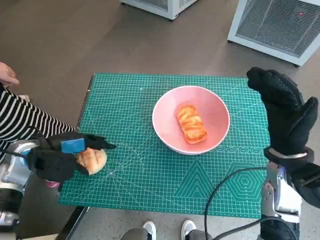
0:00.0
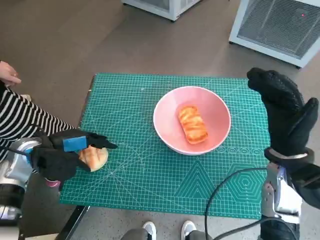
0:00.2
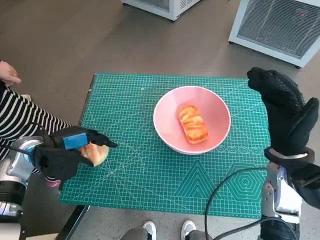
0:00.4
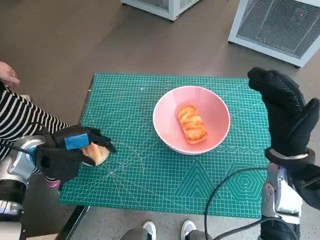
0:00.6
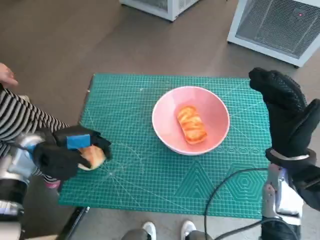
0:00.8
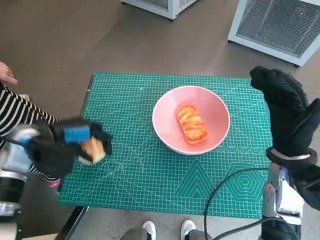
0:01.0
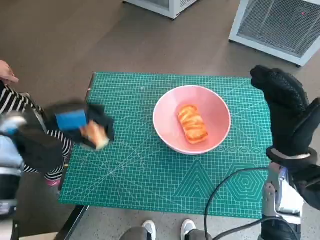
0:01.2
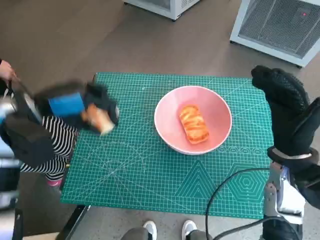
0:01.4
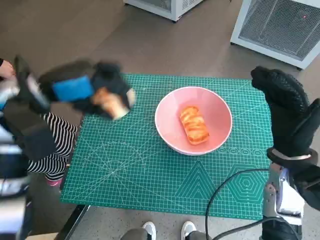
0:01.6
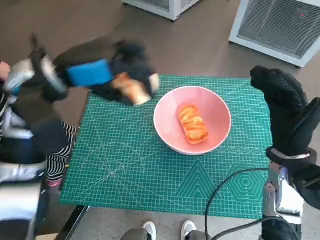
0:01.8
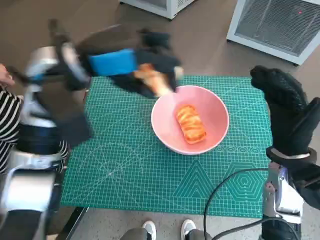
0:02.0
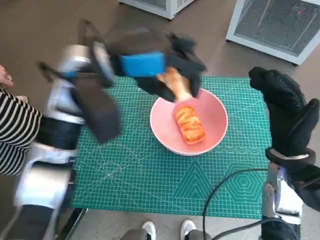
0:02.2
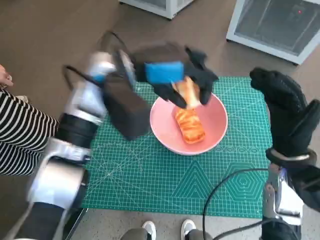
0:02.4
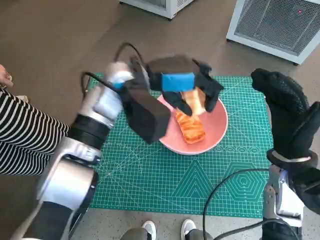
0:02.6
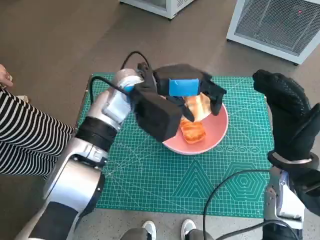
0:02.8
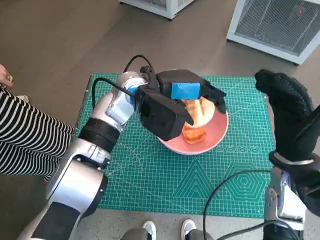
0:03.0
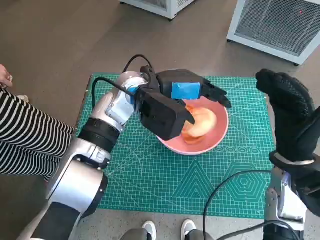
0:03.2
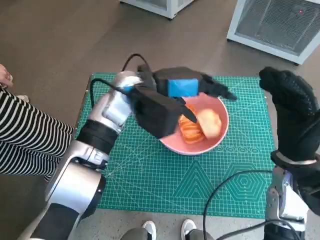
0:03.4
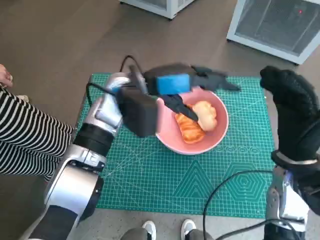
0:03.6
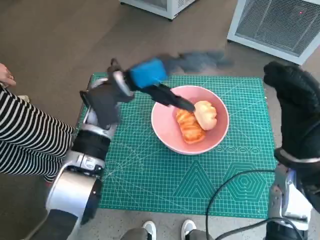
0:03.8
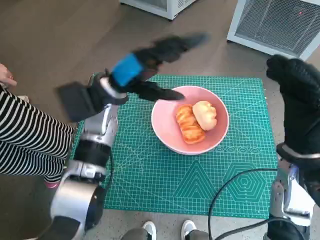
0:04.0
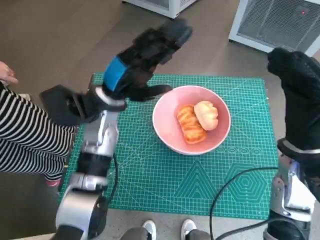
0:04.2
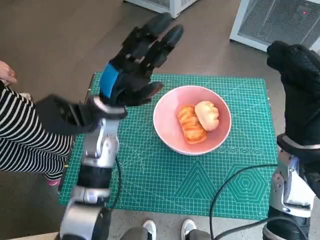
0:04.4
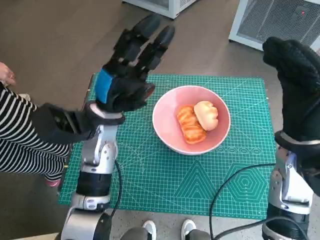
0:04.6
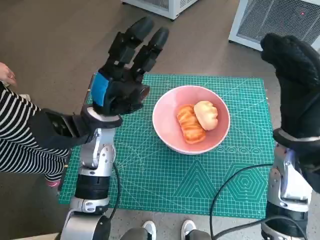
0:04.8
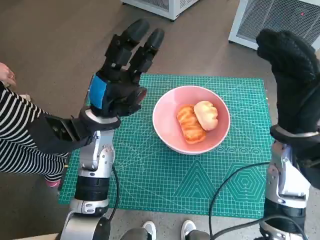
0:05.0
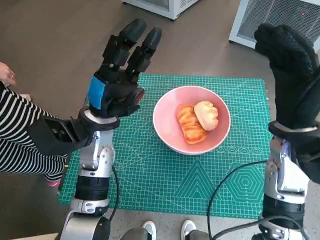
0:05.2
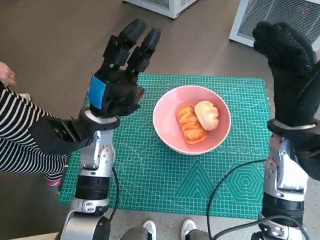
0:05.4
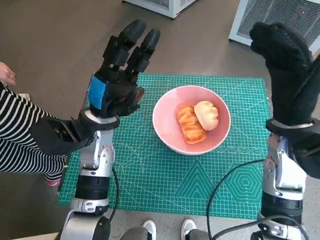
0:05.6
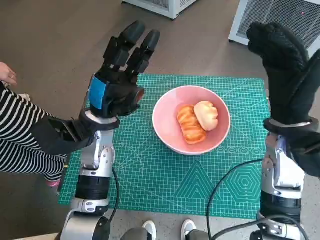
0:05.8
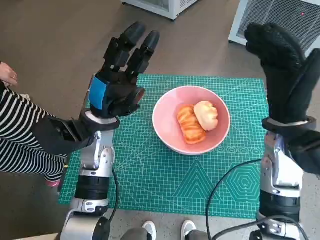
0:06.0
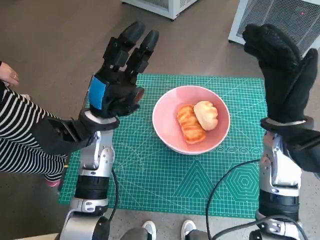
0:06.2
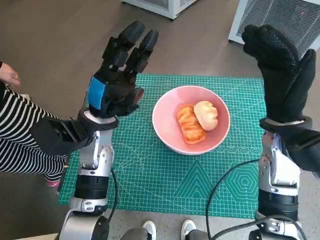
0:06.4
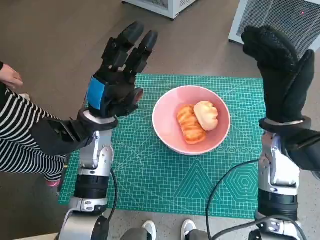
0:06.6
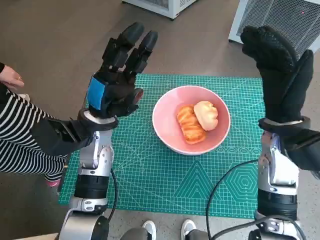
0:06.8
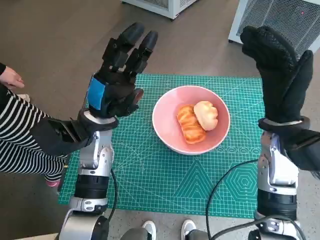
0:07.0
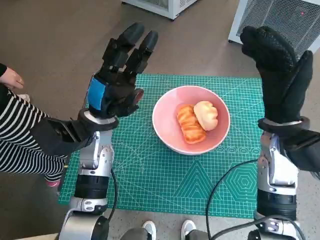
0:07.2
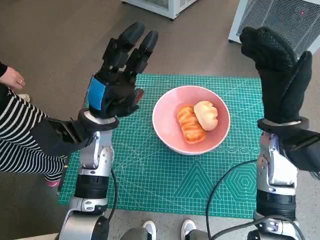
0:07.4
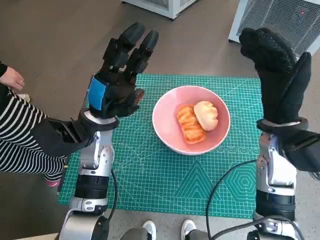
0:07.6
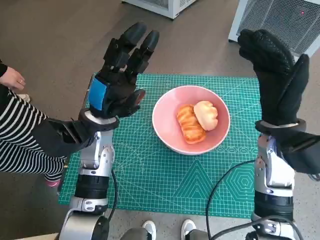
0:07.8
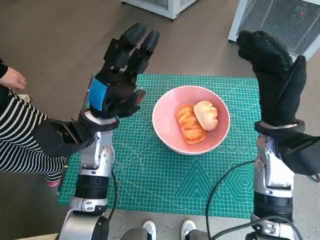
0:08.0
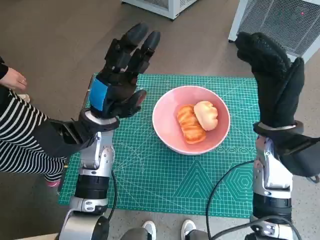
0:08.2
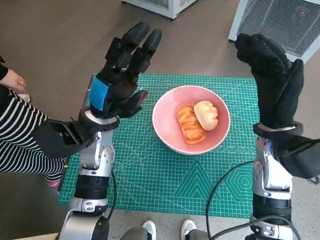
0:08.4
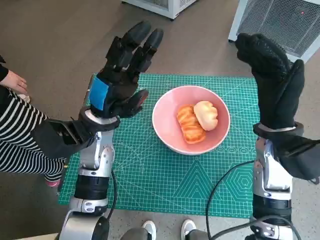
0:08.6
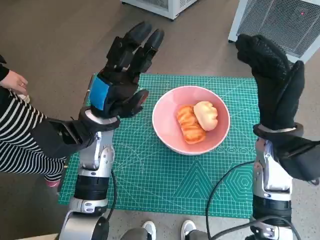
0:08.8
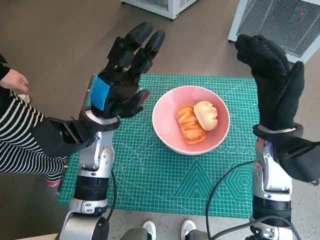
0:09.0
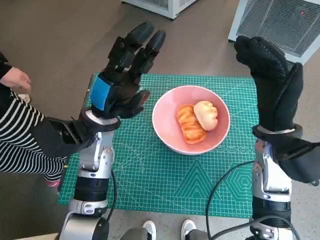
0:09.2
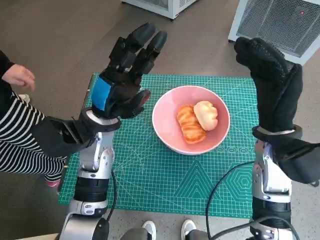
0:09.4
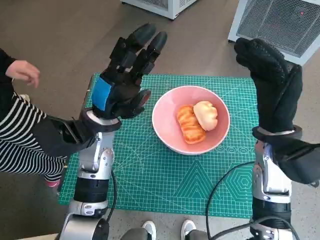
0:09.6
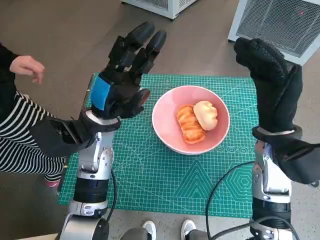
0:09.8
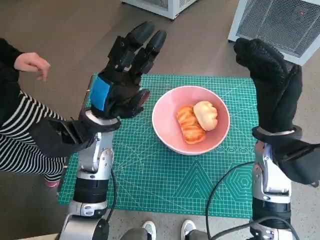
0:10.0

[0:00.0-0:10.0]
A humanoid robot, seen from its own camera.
Task of the whole recording: Push the bowl into the center of the table and put the bread into the bowl.
Step, 0:01.0 to 0:03.6: Place the round bread in pink bowl with left hand.
0:00.0 to 0:01.4: The left hand is displaced upward by about 10 cm.
0:01.4 to 0:02.8: The left hand heads to the right, covering approximately 20 cm.
0:02.8 to 0:04.2: The left hand moves to the left, some 5 cm.
0:05.8 to 0:07.2: The two hands keep their place.
0:07.2 to 0:08.6: The two hands keep their place.
0:08.6 to 0:10.0: The two hands keep their place.

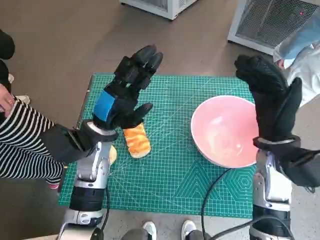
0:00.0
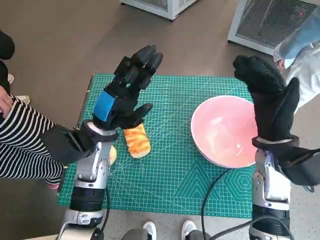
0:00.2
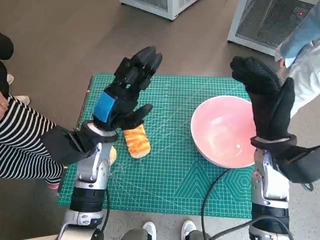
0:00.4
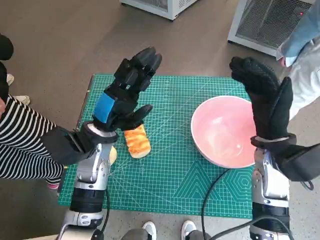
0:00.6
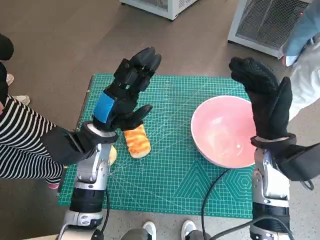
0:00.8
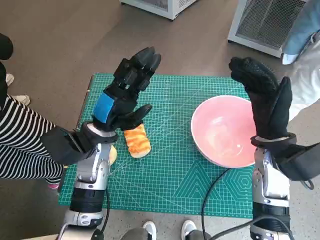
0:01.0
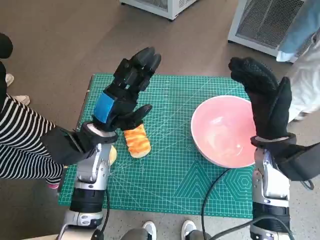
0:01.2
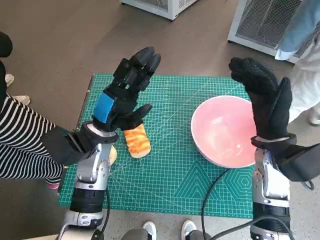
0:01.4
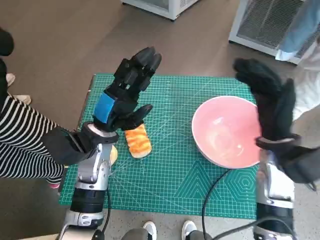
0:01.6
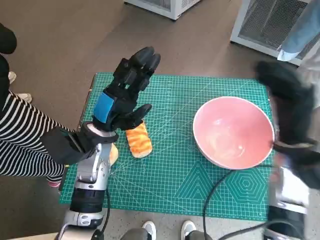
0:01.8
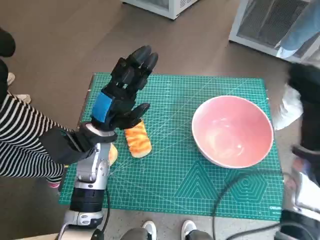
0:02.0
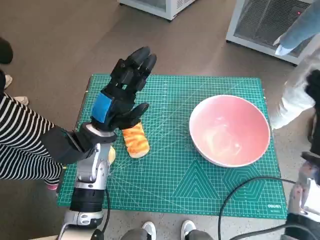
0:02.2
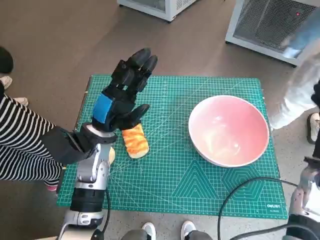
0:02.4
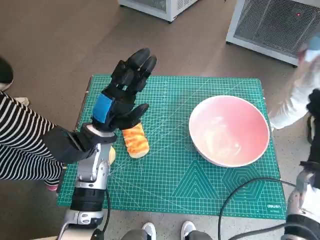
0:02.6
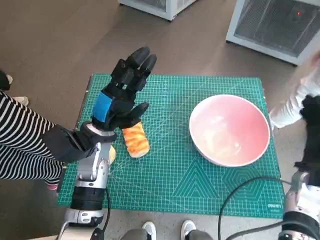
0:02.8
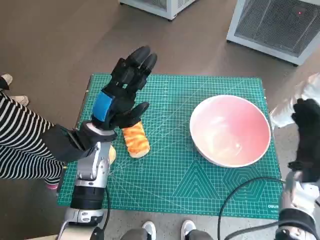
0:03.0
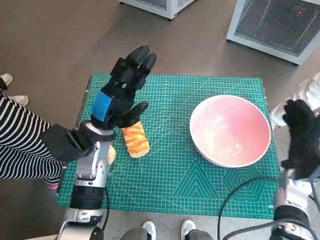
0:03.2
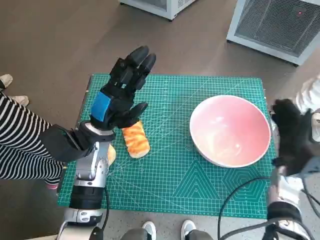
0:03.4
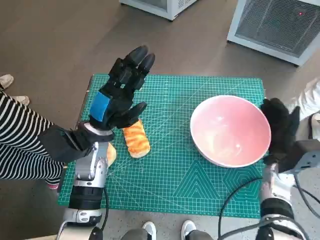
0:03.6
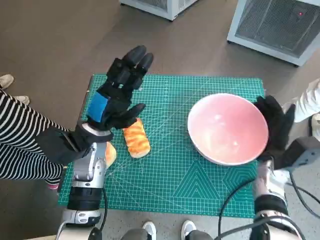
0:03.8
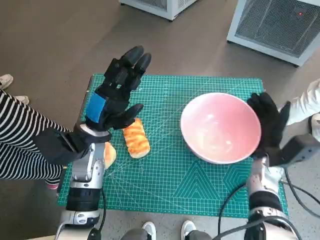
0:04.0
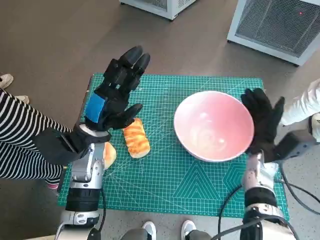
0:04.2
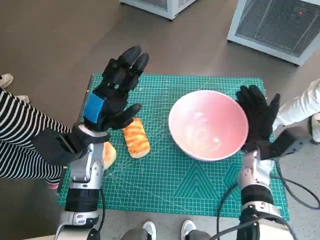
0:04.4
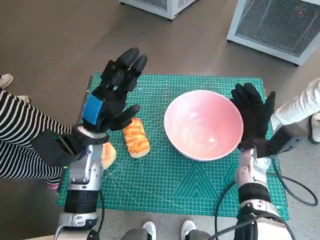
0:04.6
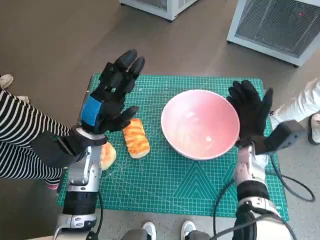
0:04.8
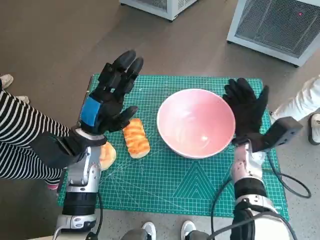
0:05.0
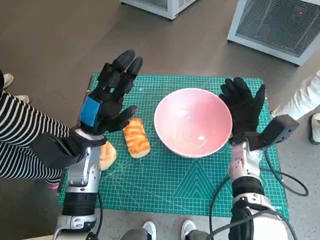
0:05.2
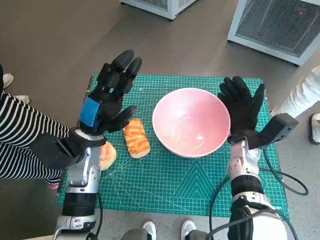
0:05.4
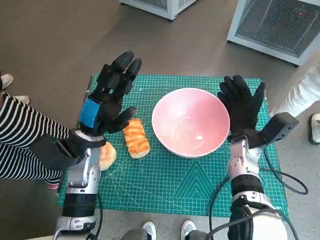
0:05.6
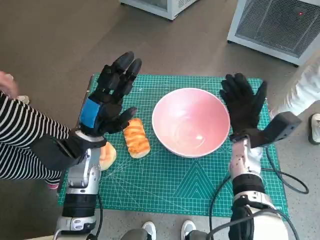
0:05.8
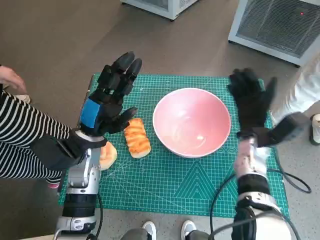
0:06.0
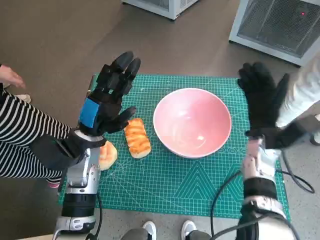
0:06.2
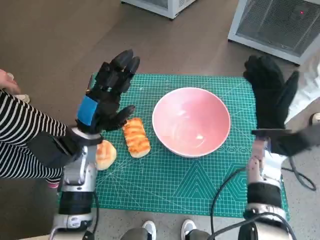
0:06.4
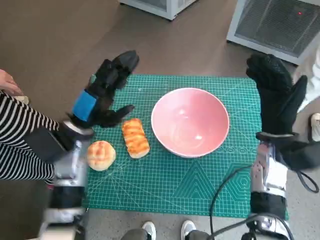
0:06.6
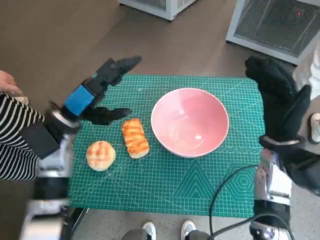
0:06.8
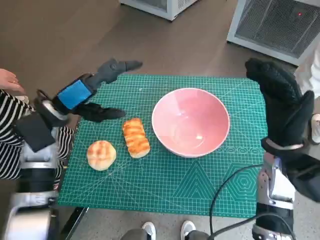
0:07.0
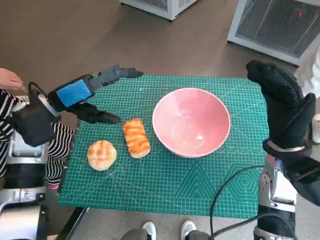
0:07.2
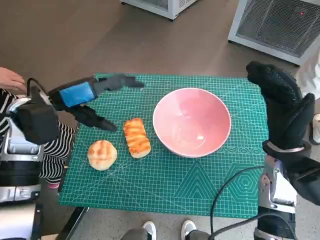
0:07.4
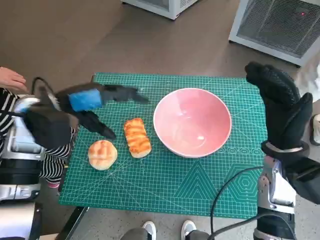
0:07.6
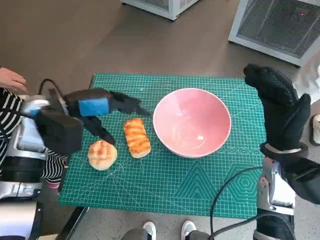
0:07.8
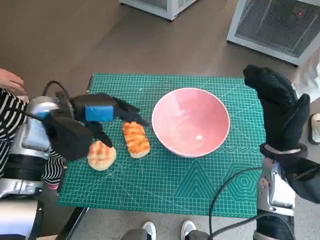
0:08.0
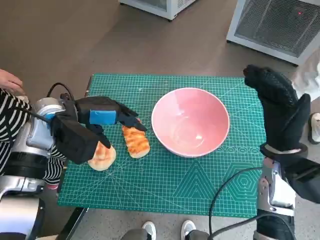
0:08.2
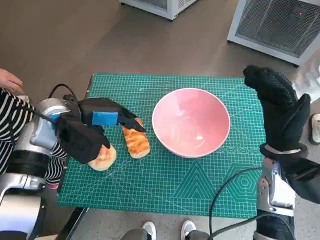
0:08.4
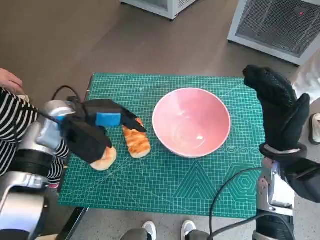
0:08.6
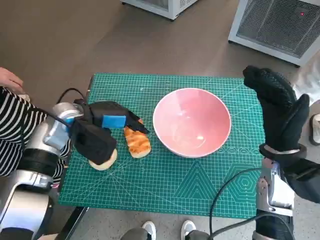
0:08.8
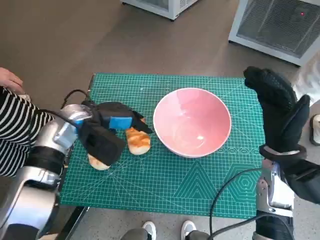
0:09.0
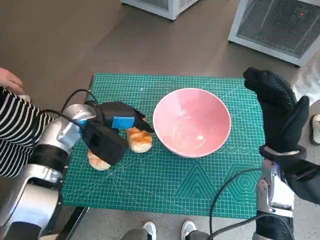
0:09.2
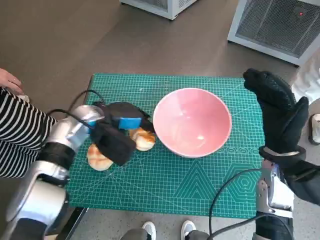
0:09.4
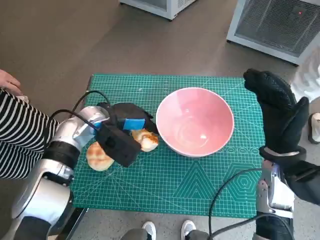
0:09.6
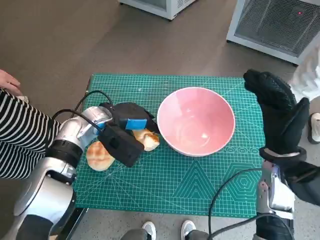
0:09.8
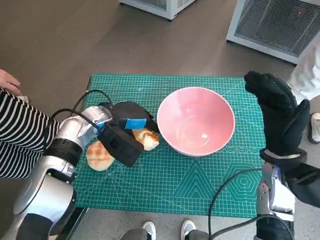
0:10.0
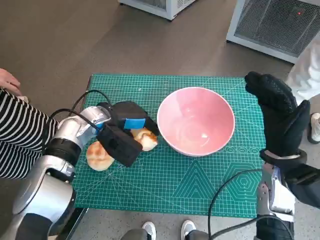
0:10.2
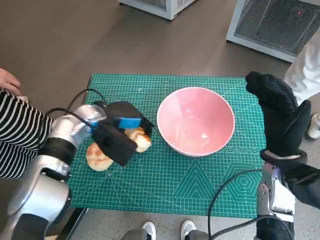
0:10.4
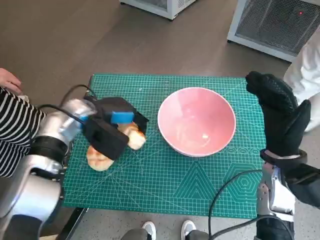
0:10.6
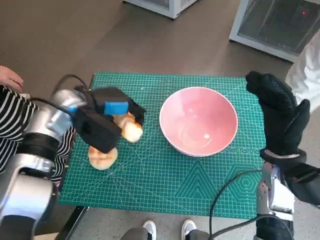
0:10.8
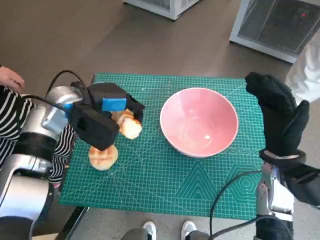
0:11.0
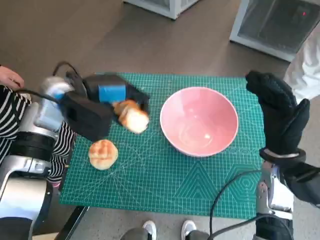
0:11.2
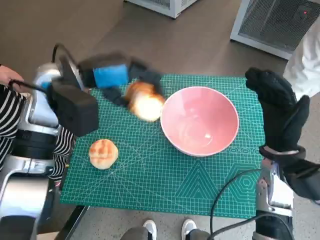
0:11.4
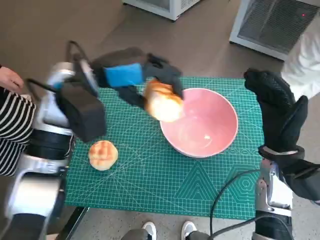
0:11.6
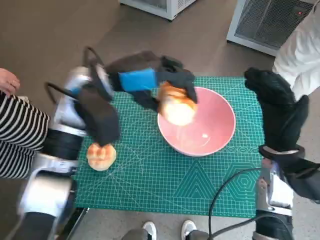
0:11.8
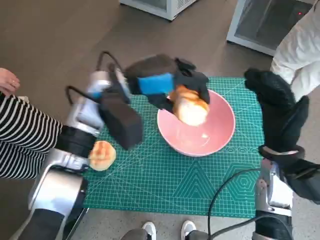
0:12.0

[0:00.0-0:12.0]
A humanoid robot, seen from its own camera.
Task of the whole recording: Push the bowl into the center of the table and put the bread into the bowl.
Step, 0:00.0 to 0:05.8: Move the pink bowl to the center of table with right hand.
Step, 0:06.2 to 0:10.2: Grasp the long bread with left hand.
0:01.6 to 0:03.0: The right hand travels to the right and downward by roughly 15 cm.
0:03.0 to 0:04.4: The right hand is displaced to the left by approximately 10 cm.
0:06.0 to 0:07.6: The left hand travels upward and to the left by approximately 10 cm; the right hand goes approximately 10 cm upward and backward.
0:07.6 to 0:09.0: The left hand is displaced downward by approximately 5 cm.
0:10.4 to 0:12.0: The left hand moves upward and to the right, about 10 cm.
